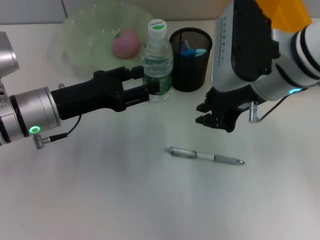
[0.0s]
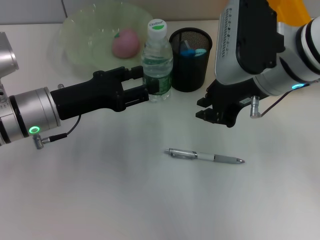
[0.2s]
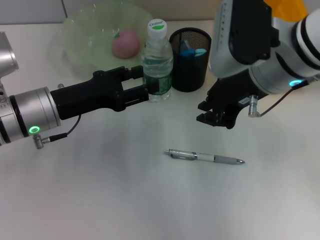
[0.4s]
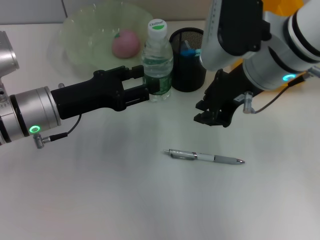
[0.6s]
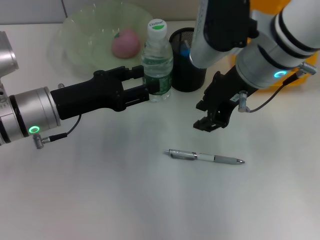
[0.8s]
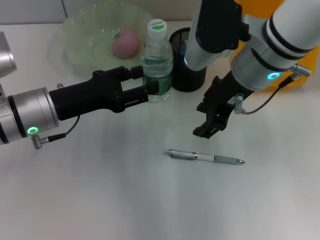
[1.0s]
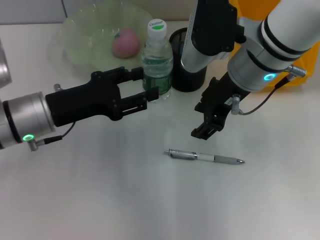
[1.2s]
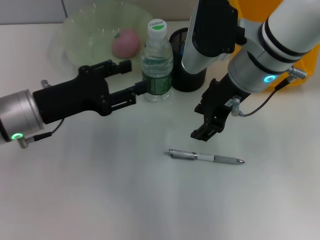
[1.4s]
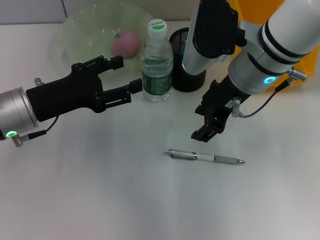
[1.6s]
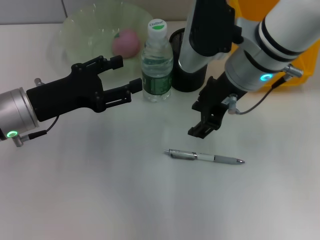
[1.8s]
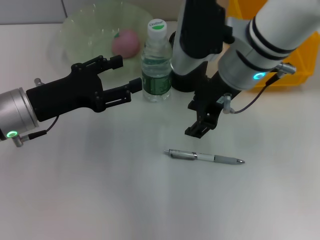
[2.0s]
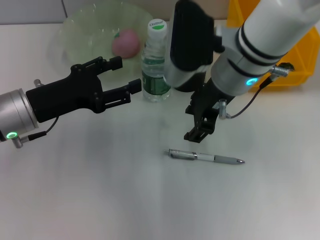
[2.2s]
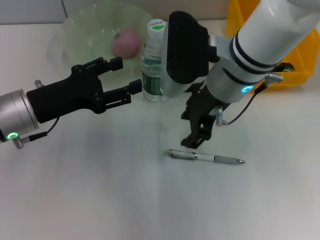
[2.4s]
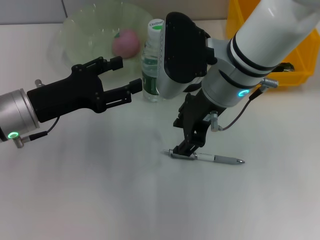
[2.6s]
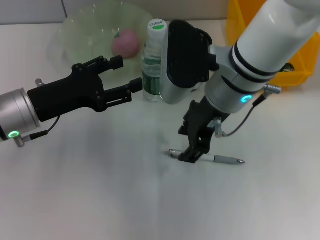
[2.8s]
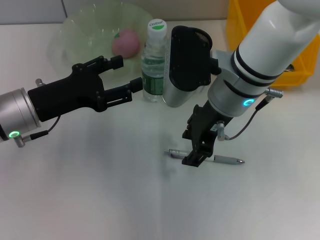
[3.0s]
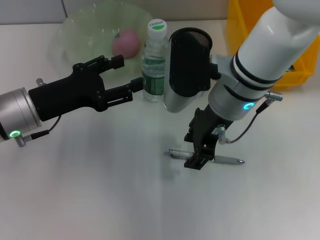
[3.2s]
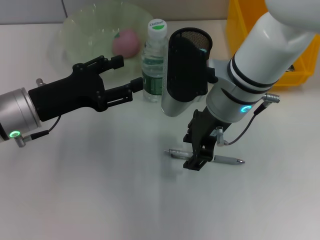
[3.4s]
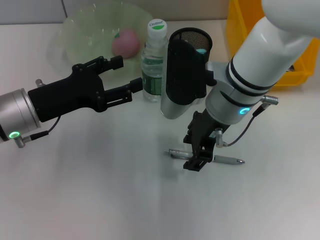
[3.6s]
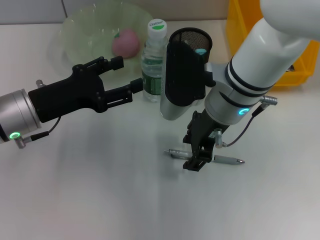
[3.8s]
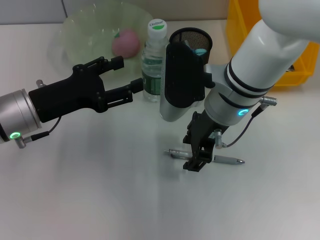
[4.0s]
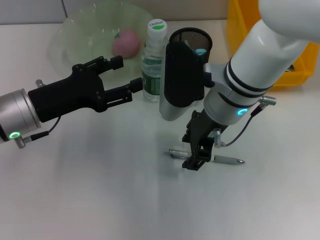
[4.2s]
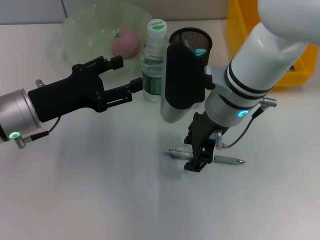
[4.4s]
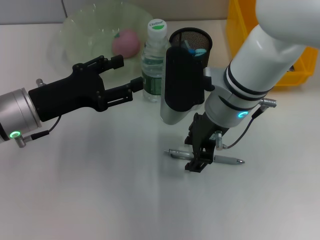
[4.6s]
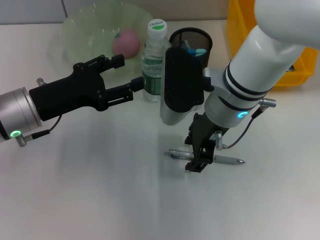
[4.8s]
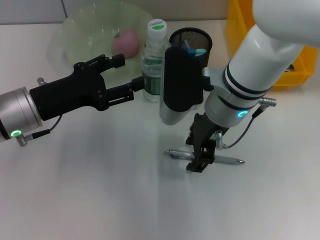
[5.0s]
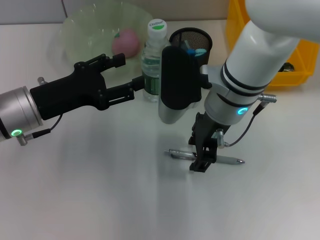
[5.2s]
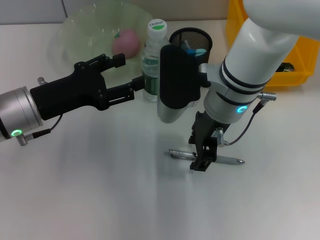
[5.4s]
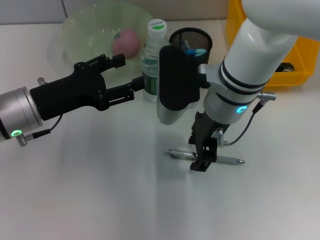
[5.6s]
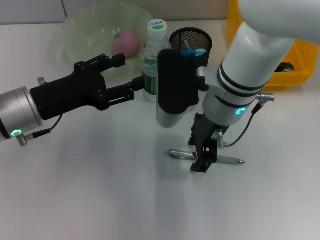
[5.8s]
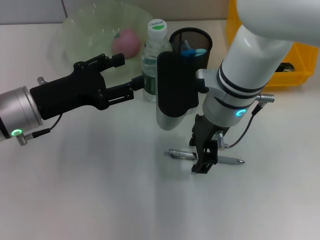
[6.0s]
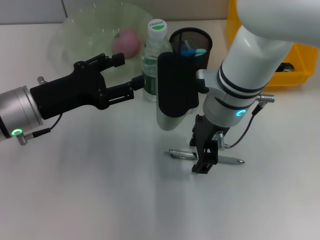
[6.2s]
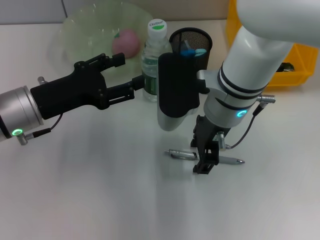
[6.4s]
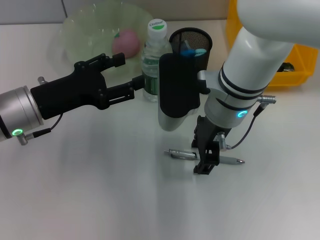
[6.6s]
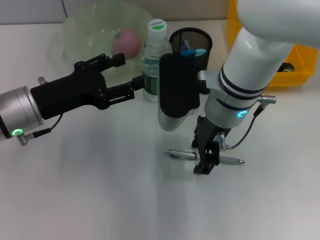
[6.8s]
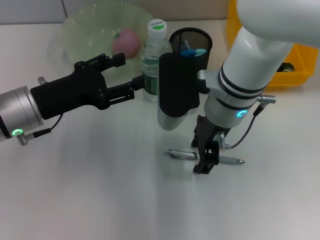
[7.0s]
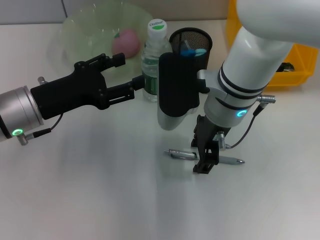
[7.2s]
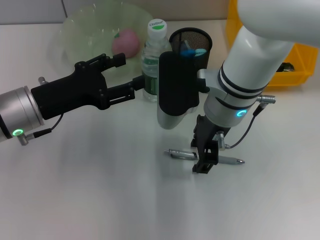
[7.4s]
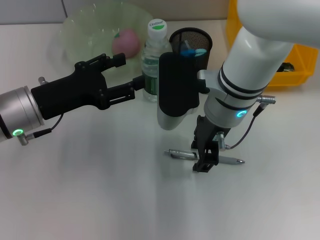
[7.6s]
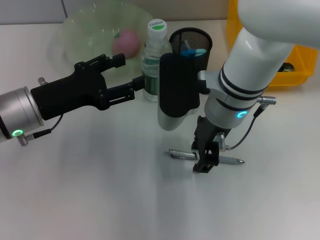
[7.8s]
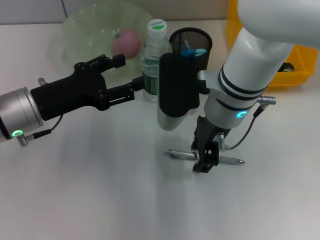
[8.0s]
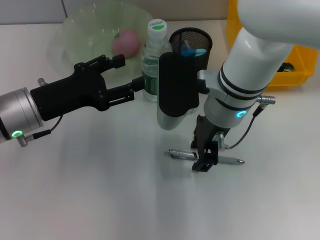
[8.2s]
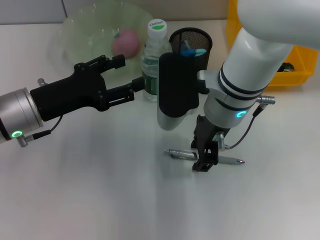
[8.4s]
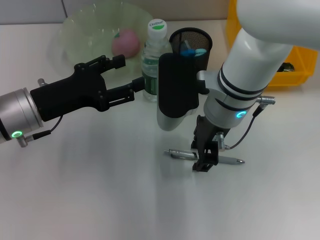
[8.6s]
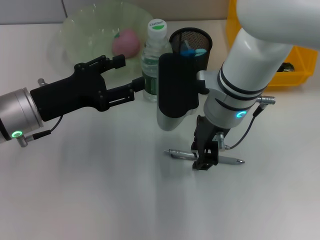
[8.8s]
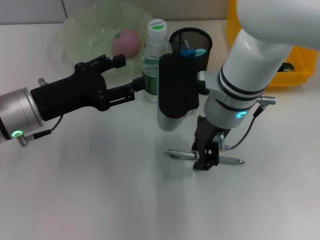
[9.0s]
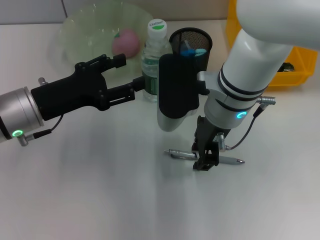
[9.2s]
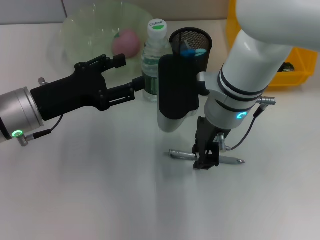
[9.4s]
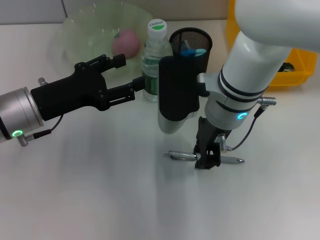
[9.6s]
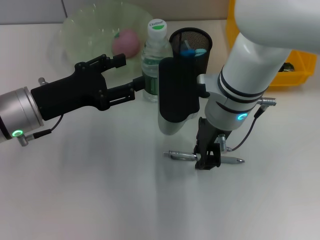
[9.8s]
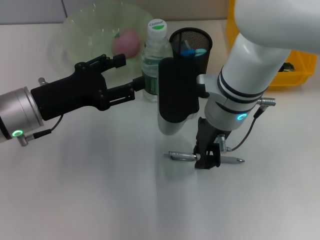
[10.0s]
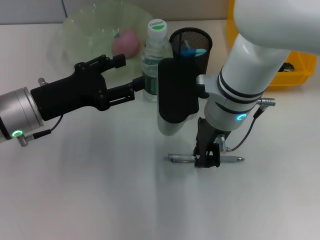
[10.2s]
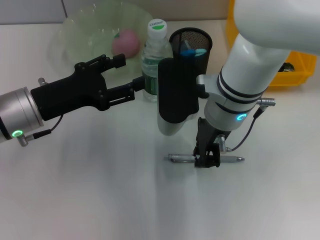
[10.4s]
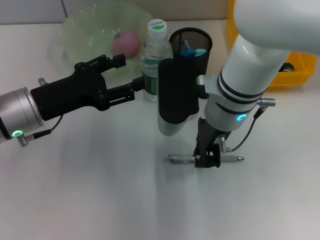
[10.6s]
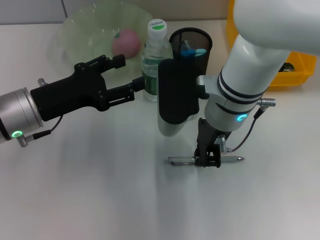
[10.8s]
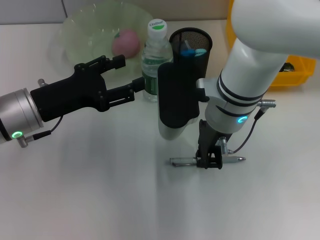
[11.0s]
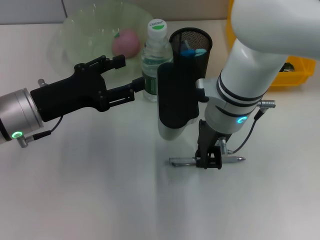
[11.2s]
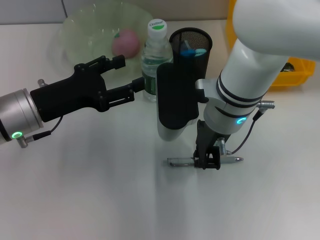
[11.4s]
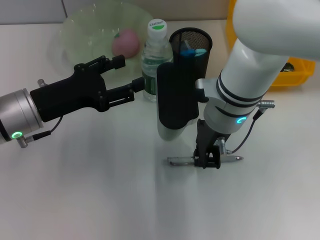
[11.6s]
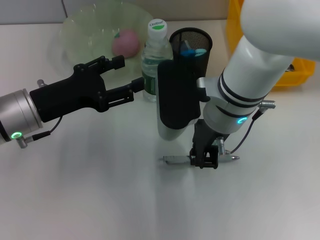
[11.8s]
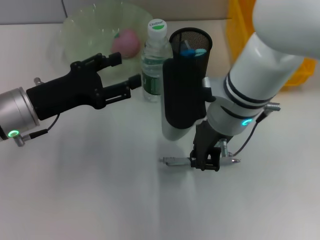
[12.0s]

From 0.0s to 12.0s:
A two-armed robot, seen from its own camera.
Step, from 0.0s to 11.6s: Grab the gray spring-action pen with the right hand.
From 0.0s to 1.6s: The right gripper opens its fingers.
From 1.6s to 6.0s: The grippers stay close to where they were, moving slightly.
From 6.0s to 10.4s: The two grippers keep their place.
From 10.4s to 12.0s: There are only small adjustments of the grippers.

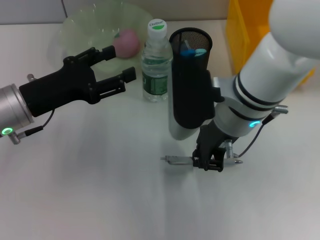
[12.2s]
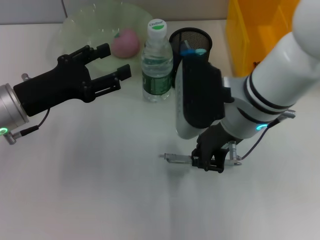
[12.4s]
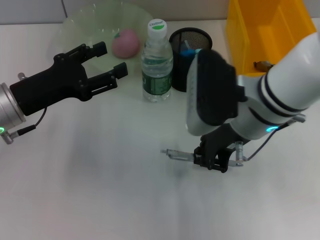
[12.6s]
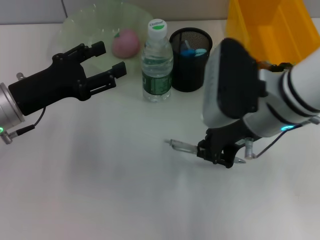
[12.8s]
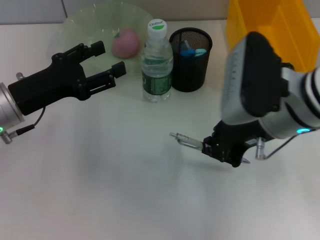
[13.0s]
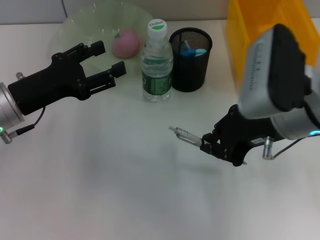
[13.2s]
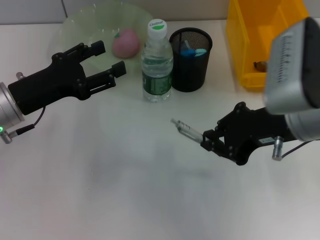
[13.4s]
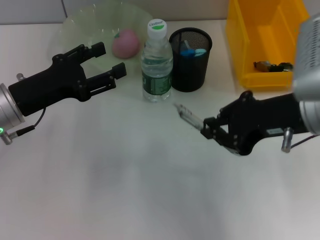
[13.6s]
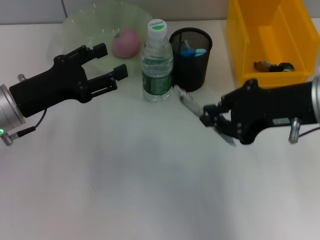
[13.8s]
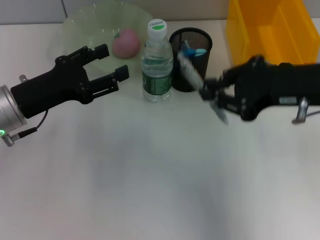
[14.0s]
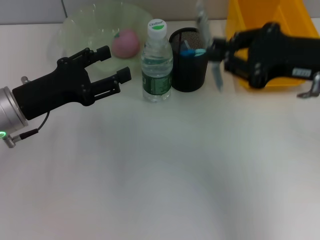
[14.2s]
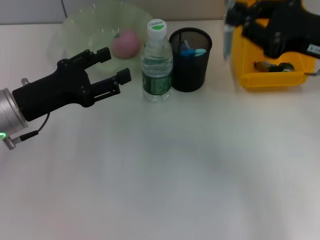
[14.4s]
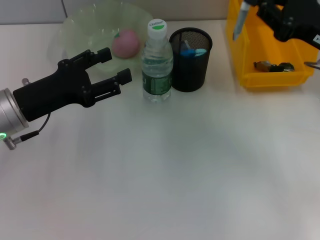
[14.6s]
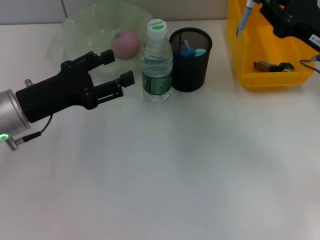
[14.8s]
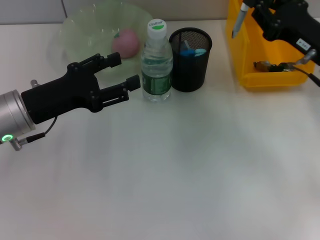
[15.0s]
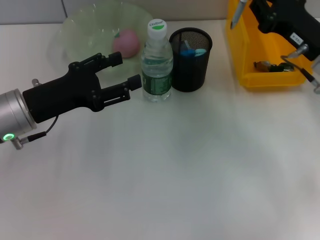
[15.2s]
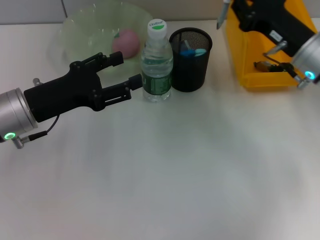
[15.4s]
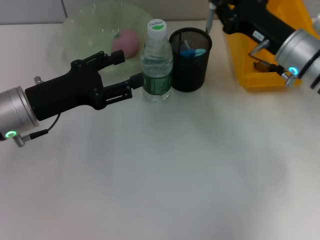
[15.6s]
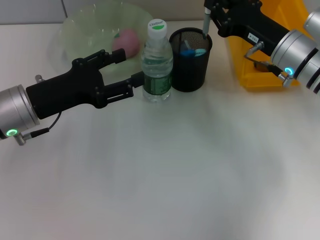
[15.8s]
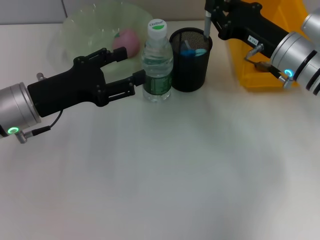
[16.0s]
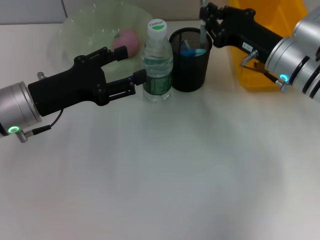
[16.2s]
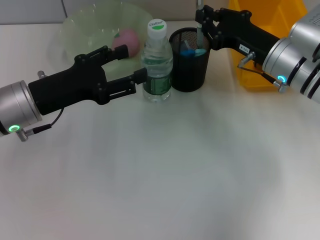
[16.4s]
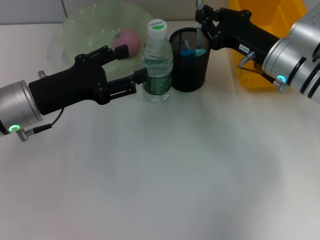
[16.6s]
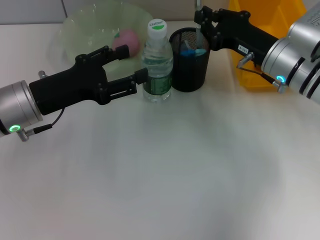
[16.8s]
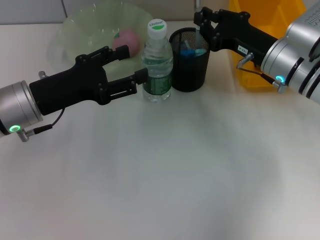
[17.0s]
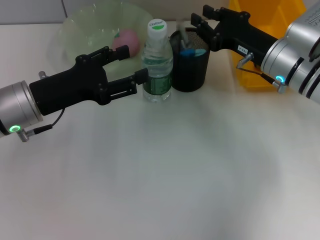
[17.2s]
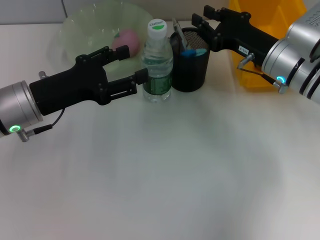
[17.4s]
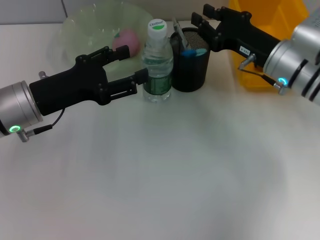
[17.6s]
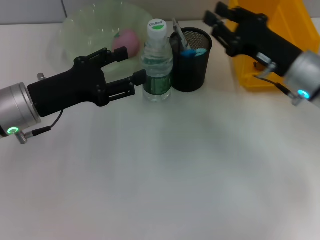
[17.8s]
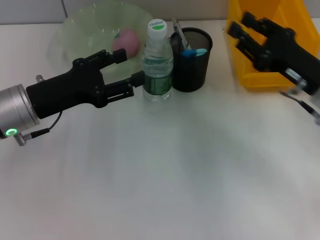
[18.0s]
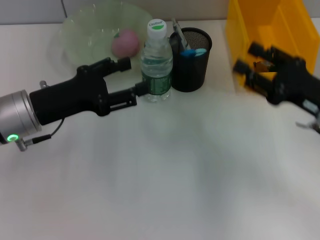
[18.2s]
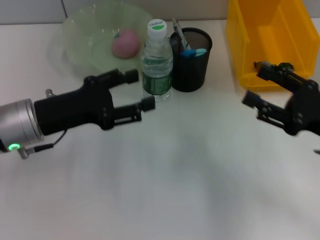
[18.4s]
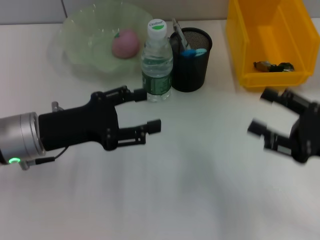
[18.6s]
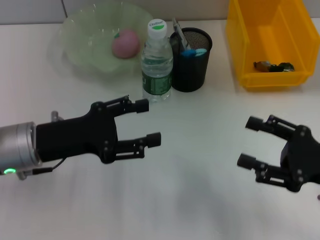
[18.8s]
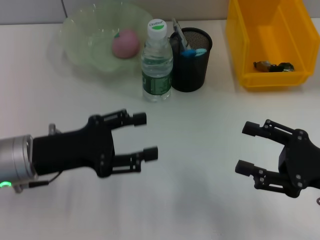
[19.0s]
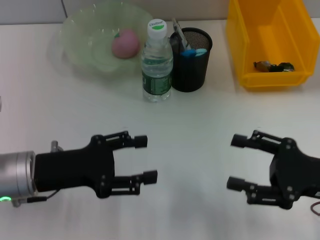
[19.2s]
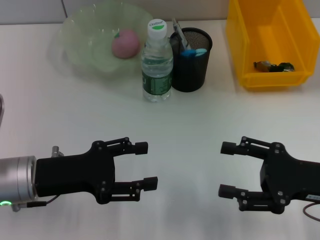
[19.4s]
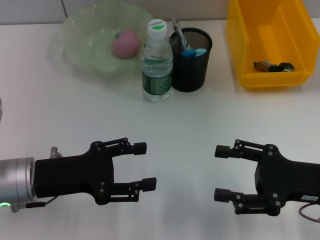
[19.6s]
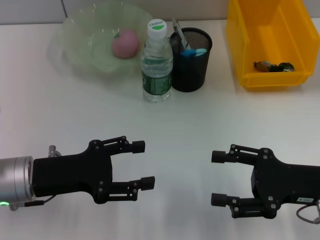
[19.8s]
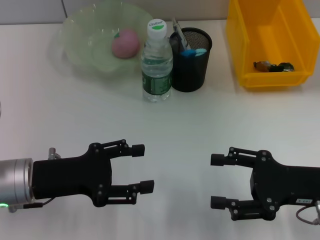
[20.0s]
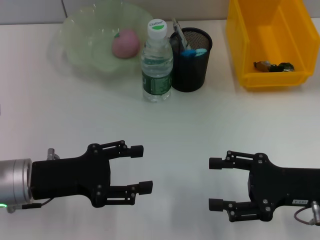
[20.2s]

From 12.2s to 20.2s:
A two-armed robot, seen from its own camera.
Step, from 12.2s to 17.2s: Place the gray spring-action pen into the pen holder with the right hand.
From 12.2s to 13.8s: The right gripper heads to the right and upward, covering some 10 cm.
From 13.8s to 15.4s: The right gripper goes about 15 cm downward and forward.
From 15.4s to 17.0s: The grippers make only small movements.
From 17.0s to 18.6s: The right gripper heads backward and to the right, covering roughly 20 cm, and opens up.
From 18.6s to 20.2s: The left gripper changes place by approximately 5 cm.

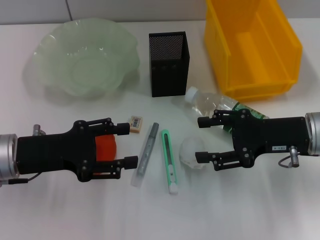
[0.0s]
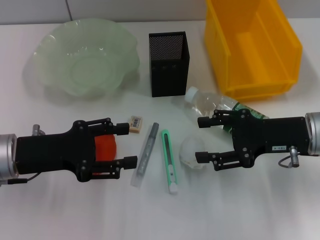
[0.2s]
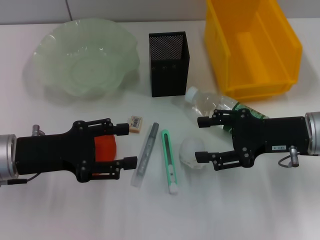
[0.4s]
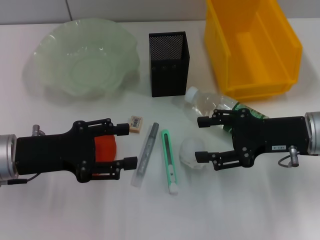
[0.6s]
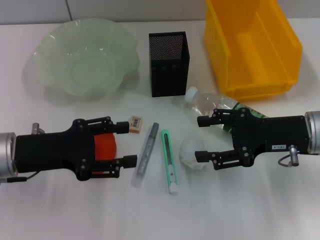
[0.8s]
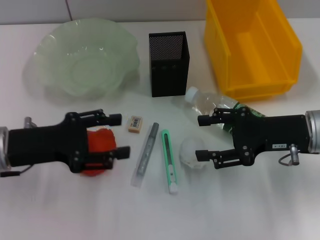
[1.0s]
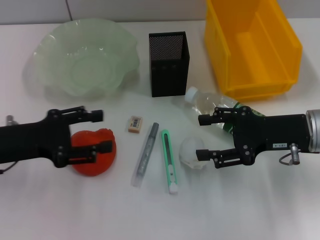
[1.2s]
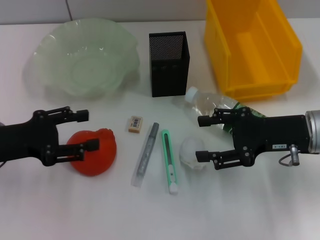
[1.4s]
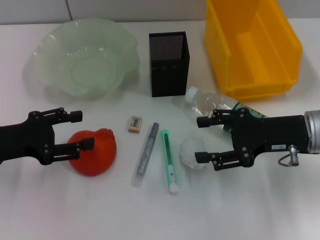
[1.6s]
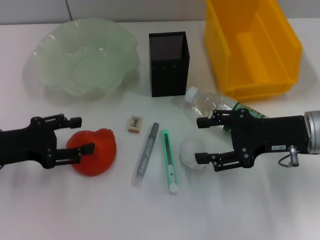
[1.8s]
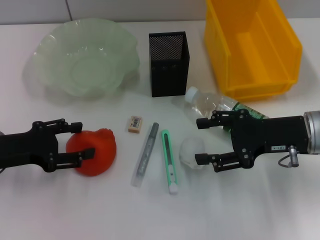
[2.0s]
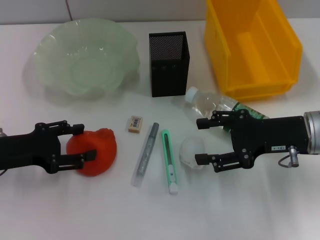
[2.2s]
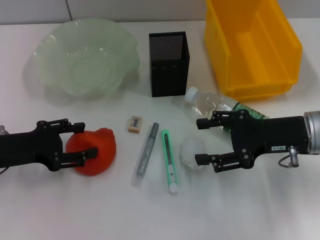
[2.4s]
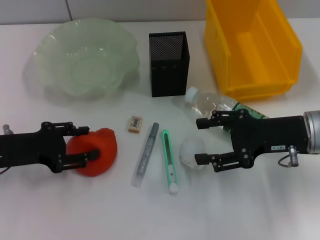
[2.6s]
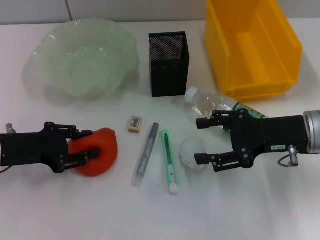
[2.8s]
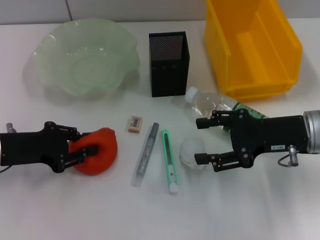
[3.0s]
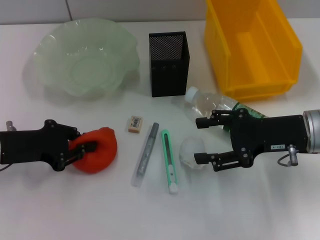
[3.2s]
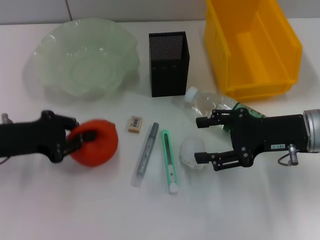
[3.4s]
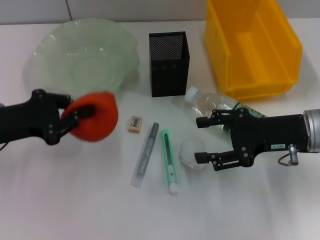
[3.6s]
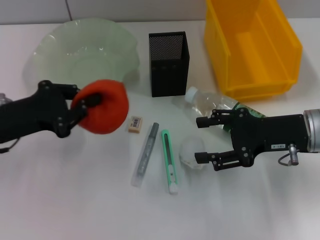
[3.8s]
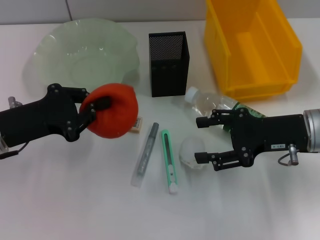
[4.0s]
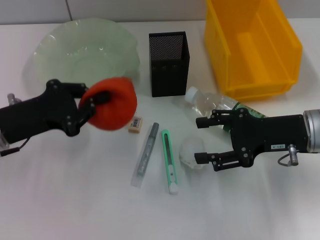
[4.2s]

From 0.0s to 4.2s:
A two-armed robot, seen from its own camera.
Step, from 0.0s to 3.0s: Grab the orange with the left hand.
From 0.0s to 1.4s: There are only small adjustments of the grippers.
From 1.4s to 2.8s: The grippers stay close to where they were, moving slightly.
From 2.8s to 4.2s: The left gripper closes its fingers.
